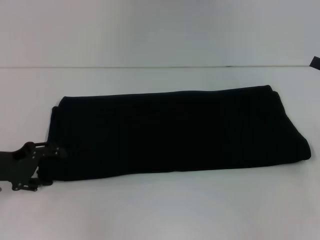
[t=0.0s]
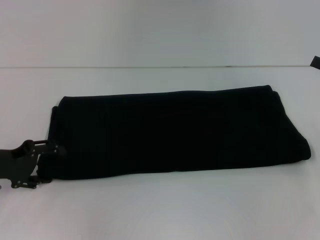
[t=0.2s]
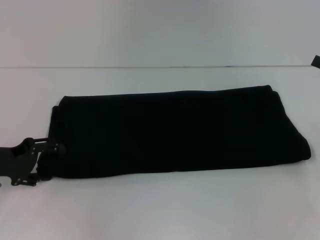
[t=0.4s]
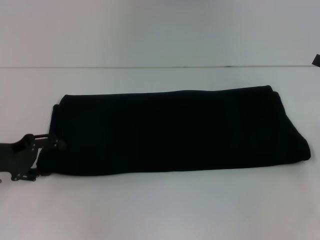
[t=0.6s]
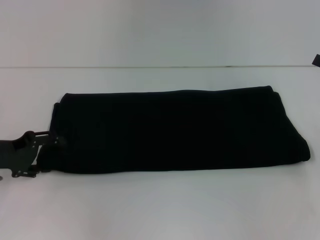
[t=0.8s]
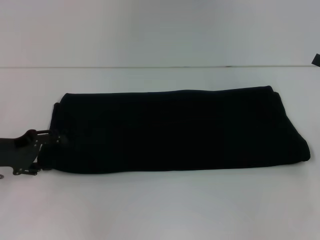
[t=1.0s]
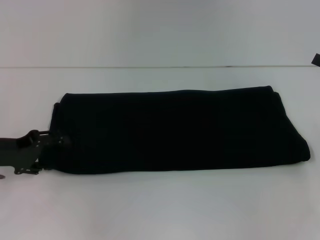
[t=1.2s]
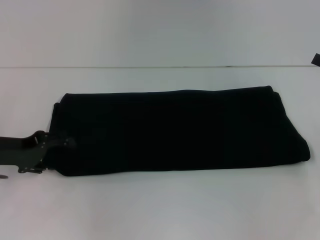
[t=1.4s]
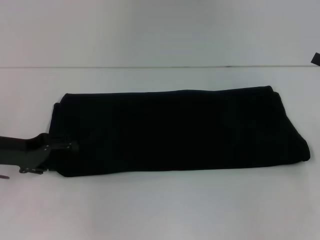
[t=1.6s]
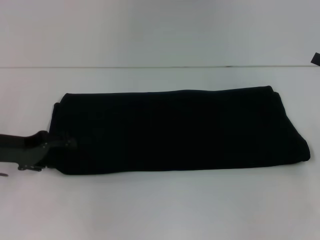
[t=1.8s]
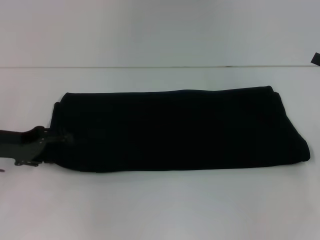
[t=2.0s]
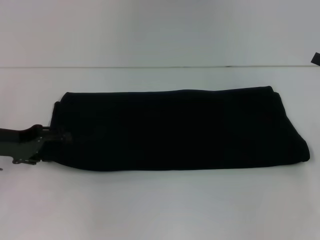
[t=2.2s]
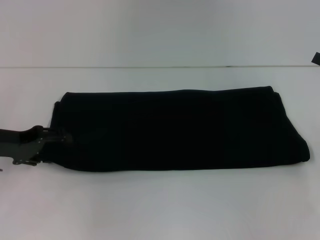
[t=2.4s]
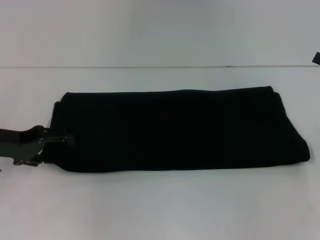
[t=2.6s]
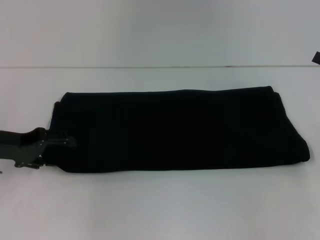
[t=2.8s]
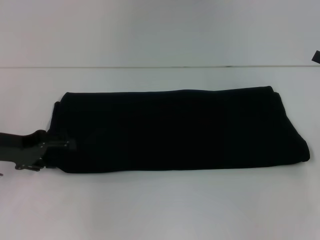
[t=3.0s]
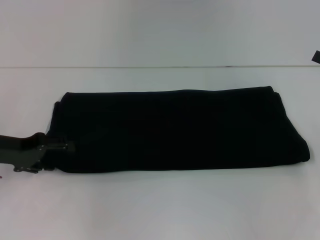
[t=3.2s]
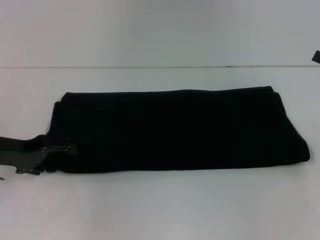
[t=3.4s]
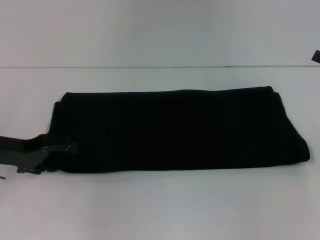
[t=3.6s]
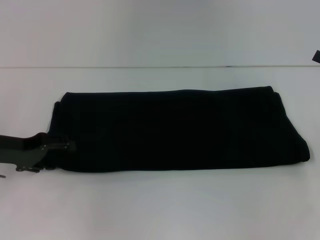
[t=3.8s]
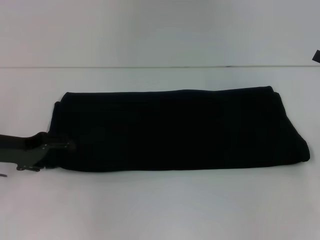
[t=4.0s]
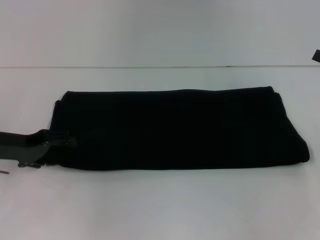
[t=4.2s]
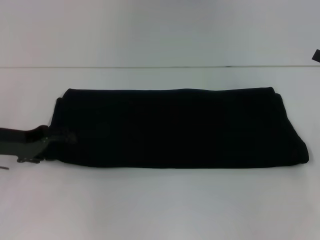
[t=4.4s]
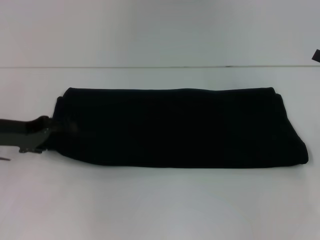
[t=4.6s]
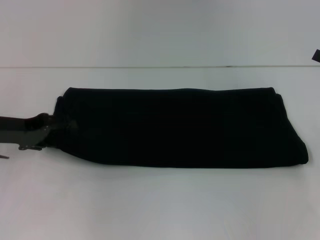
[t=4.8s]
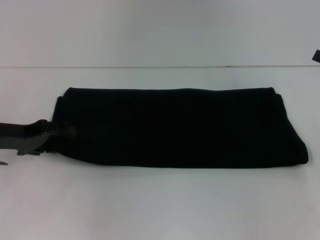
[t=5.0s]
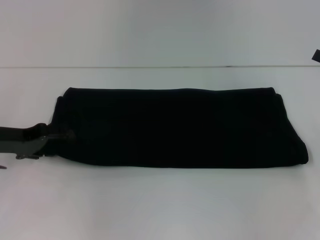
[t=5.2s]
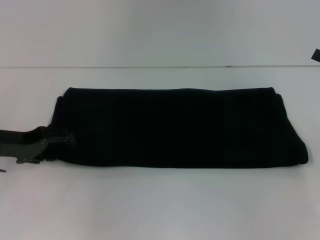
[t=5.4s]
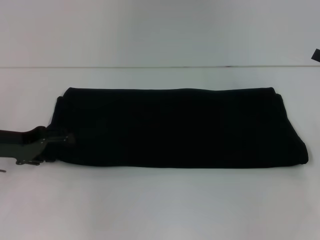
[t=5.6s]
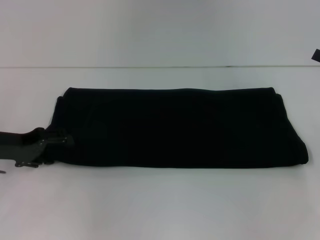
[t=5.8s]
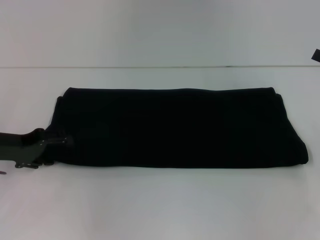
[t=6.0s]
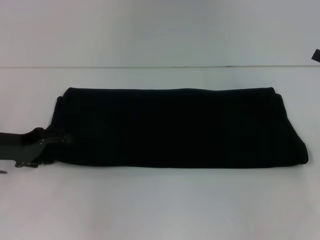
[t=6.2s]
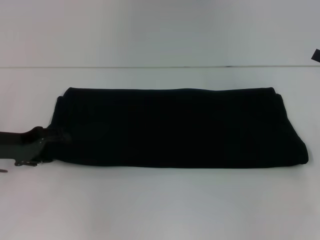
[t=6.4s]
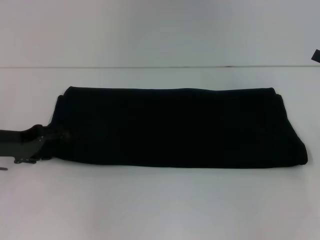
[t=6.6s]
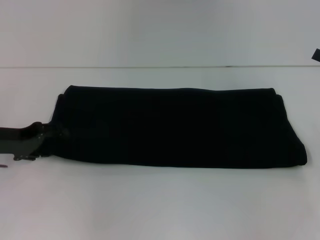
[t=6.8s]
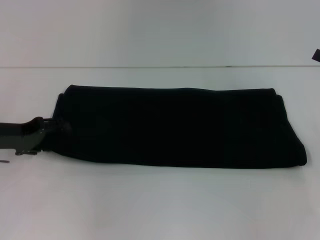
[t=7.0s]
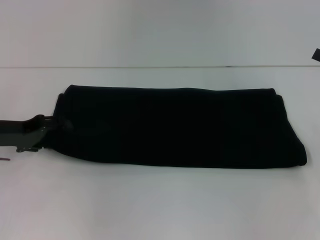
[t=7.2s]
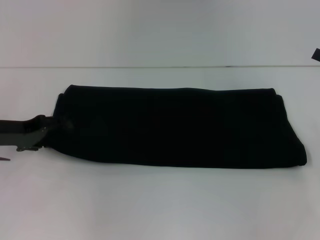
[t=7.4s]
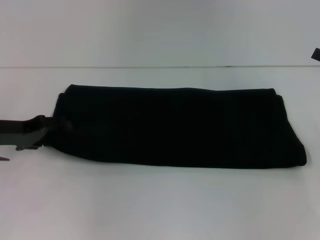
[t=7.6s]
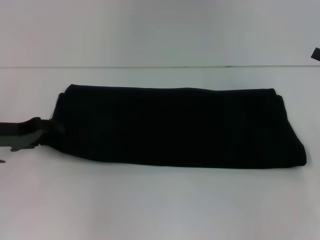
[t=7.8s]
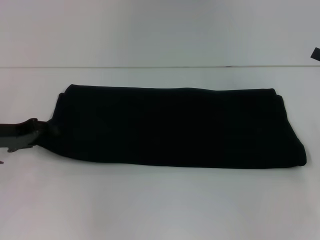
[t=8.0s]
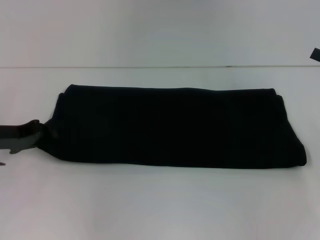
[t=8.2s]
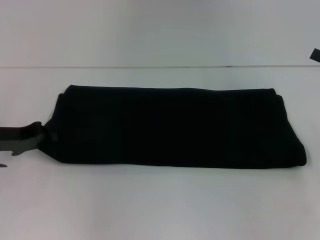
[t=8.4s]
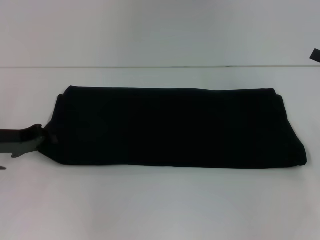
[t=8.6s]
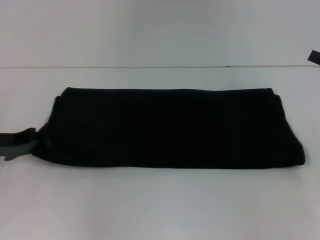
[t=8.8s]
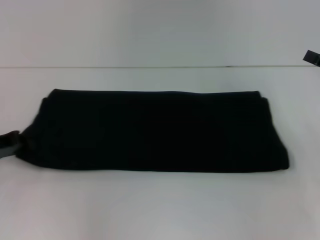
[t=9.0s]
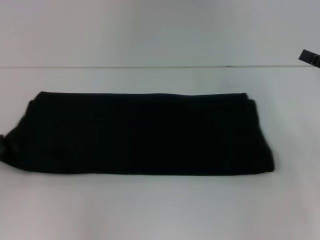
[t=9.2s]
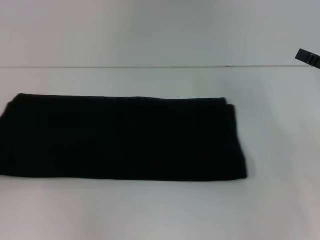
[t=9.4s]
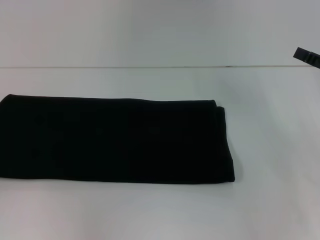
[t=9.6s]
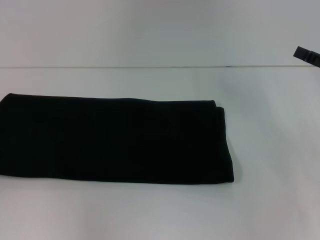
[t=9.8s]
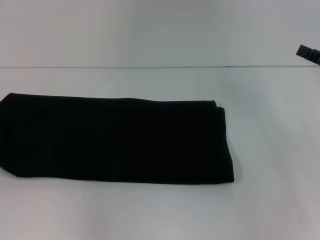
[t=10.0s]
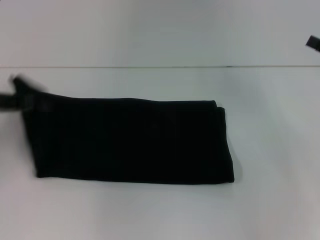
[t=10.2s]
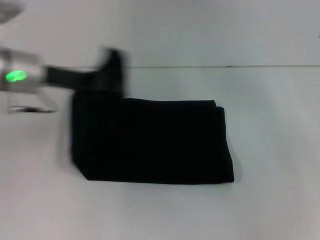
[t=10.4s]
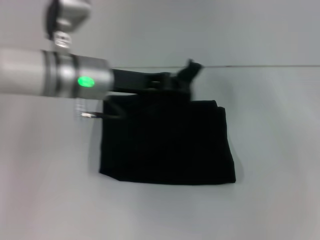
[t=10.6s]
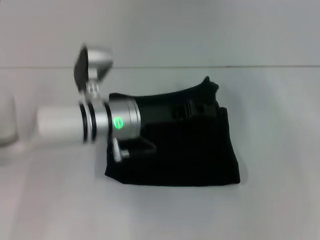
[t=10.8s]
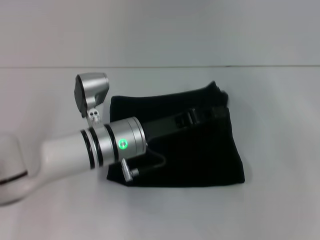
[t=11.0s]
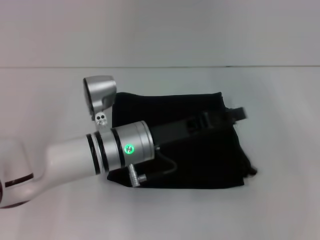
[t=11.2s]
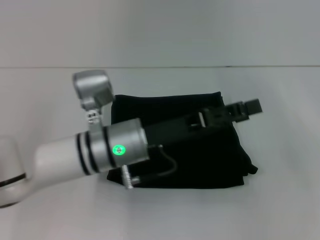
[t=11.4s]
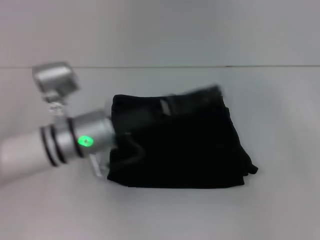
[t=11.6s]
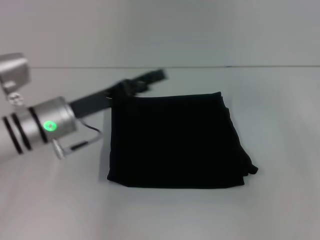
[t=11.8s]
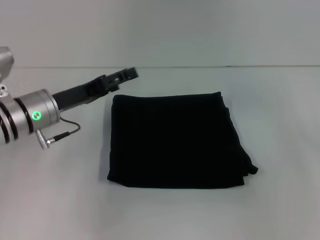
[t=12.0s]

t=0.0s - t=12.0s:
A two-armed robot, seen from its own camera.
Step, t=0.0s - t=11.4s: Fold the clothes with your left hand.
t=0.0s - t=3.0s: The grippers make only small movements.
t=3.0s - t=4.4s: The grippers stay close to where they were, moving slightly.
t=4.4s - t=6.0s: Neither gripper changes place.
t=6.0s - t=7.6s: There are only small adjustments of the grippers.
t=7.6s - t=9.0s: The left gripper closes up.
t=9.0s - t=10.4s: The left gripper travels to the right, upward and forward by approximately 15 cm.
t=10.4s - t=12.0s: The left gripper goes some 10 cm downward, moves roughly 15 cm to the right and comes back, and opens up.

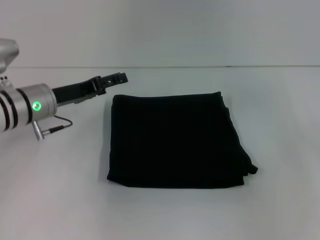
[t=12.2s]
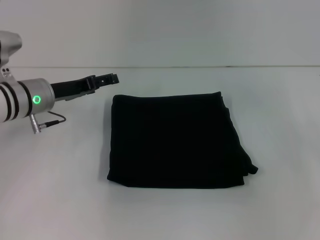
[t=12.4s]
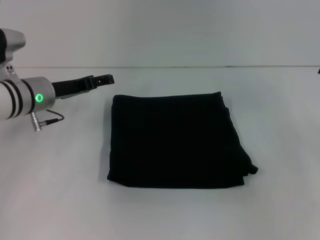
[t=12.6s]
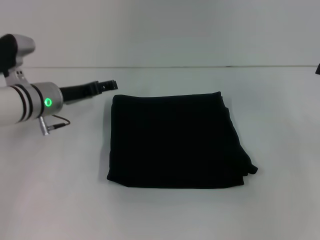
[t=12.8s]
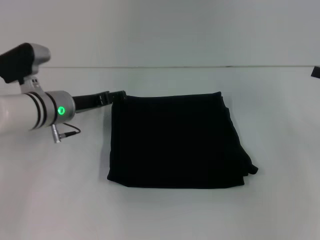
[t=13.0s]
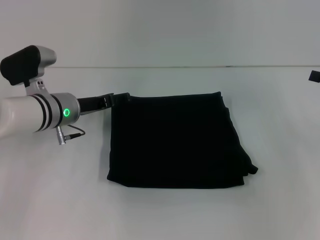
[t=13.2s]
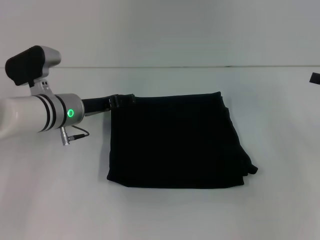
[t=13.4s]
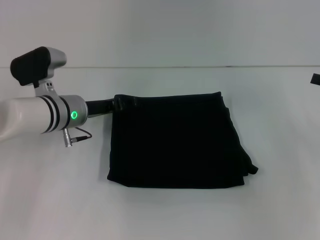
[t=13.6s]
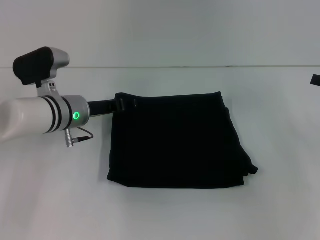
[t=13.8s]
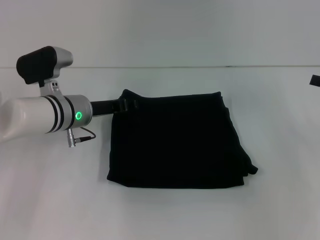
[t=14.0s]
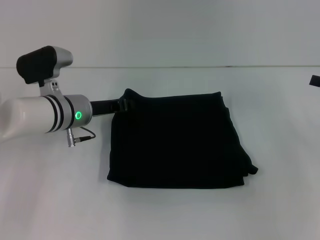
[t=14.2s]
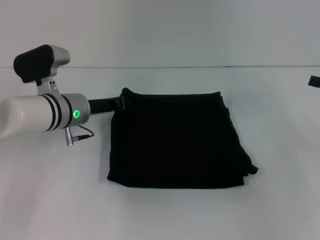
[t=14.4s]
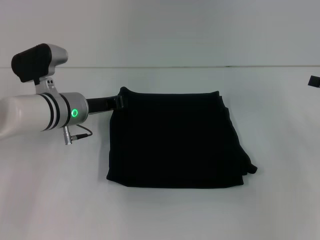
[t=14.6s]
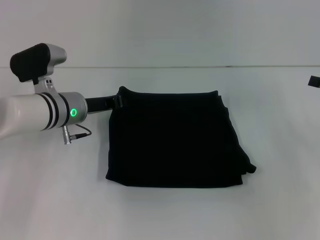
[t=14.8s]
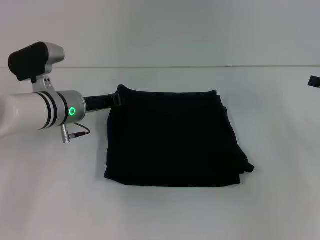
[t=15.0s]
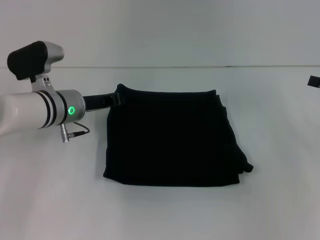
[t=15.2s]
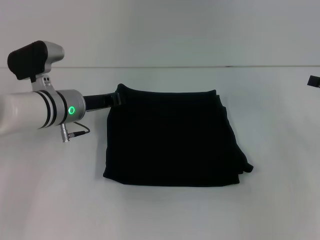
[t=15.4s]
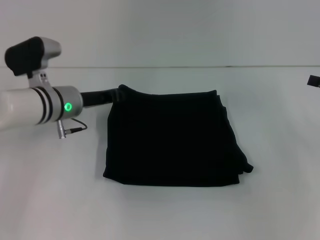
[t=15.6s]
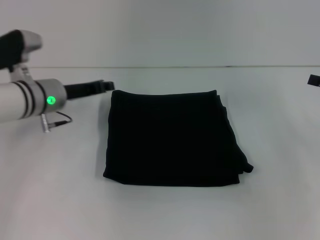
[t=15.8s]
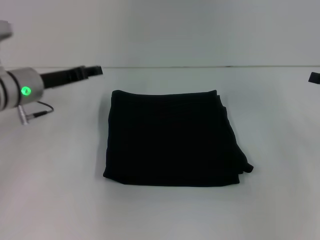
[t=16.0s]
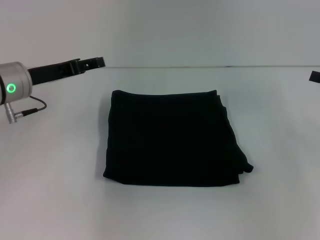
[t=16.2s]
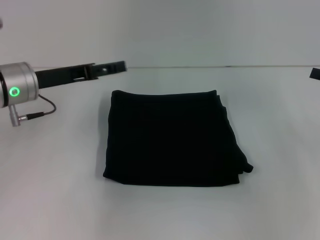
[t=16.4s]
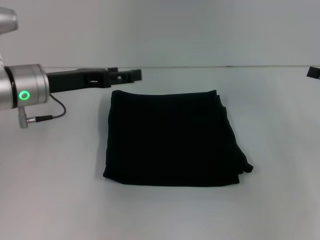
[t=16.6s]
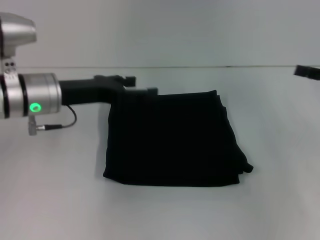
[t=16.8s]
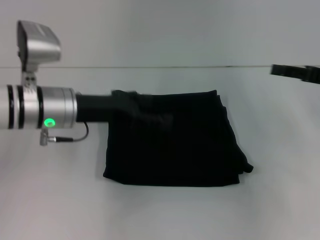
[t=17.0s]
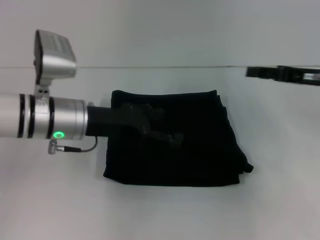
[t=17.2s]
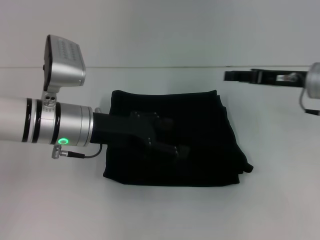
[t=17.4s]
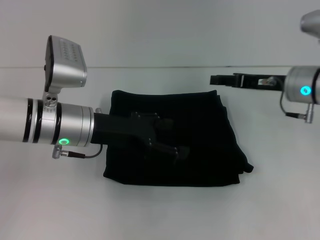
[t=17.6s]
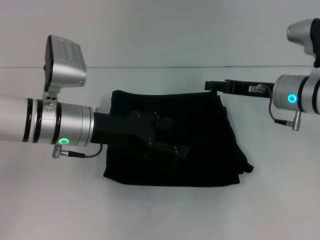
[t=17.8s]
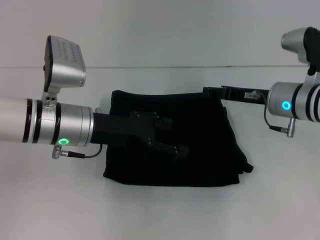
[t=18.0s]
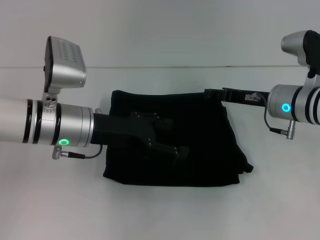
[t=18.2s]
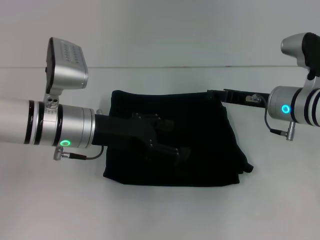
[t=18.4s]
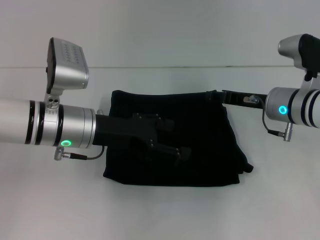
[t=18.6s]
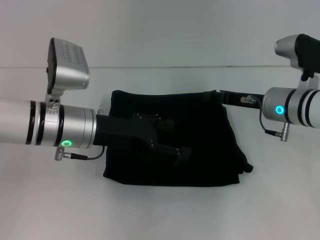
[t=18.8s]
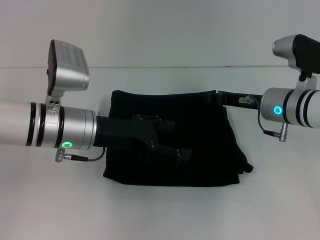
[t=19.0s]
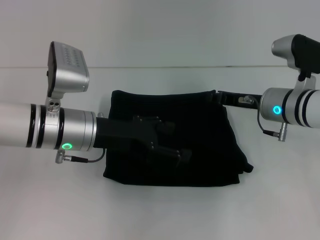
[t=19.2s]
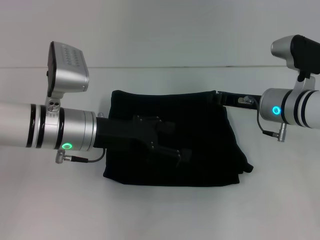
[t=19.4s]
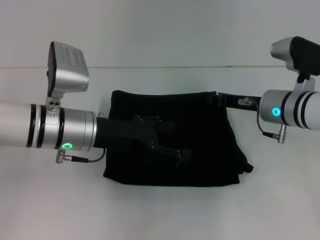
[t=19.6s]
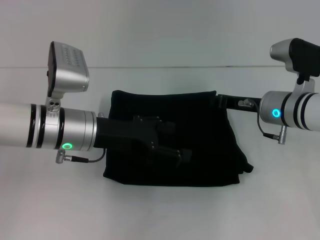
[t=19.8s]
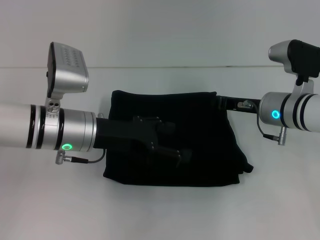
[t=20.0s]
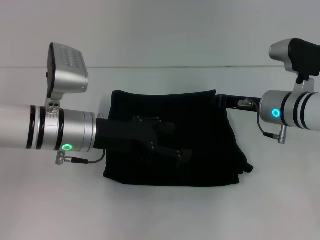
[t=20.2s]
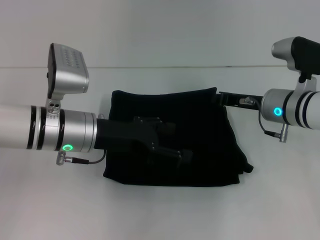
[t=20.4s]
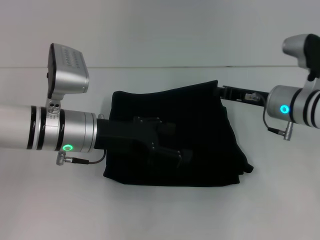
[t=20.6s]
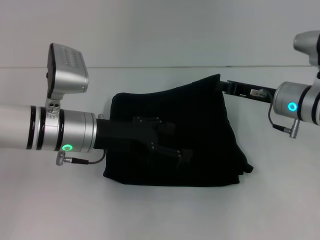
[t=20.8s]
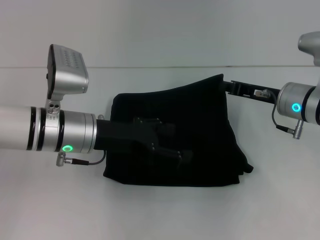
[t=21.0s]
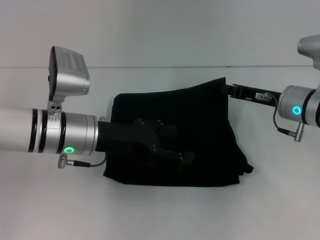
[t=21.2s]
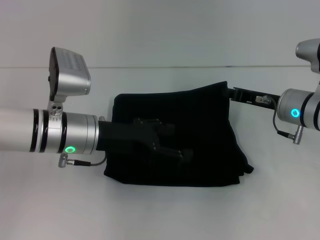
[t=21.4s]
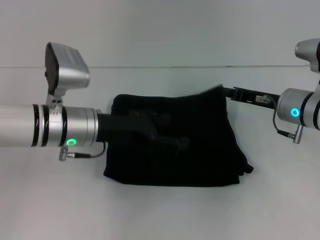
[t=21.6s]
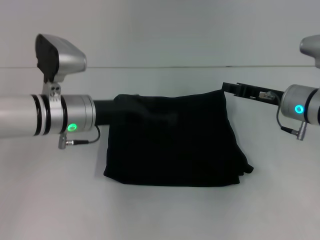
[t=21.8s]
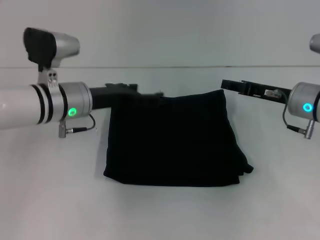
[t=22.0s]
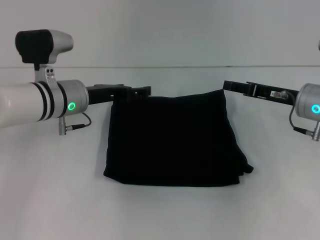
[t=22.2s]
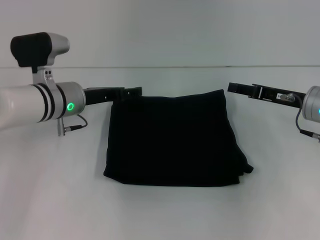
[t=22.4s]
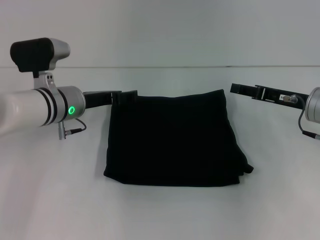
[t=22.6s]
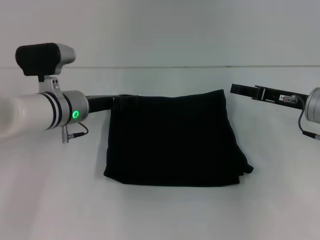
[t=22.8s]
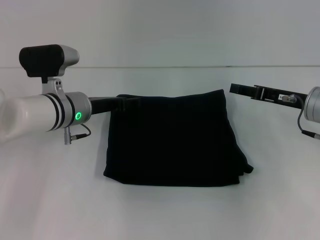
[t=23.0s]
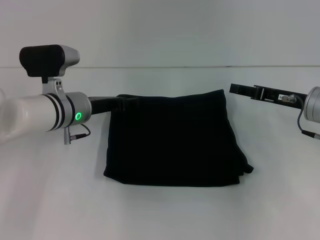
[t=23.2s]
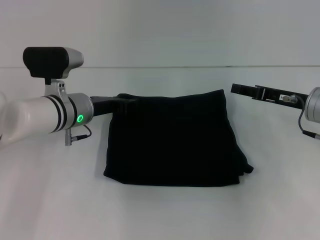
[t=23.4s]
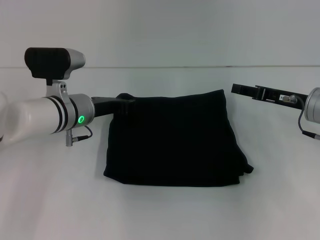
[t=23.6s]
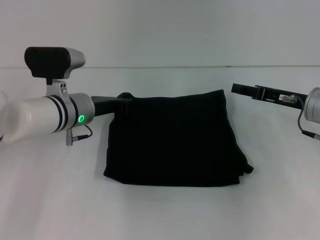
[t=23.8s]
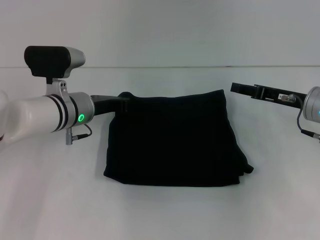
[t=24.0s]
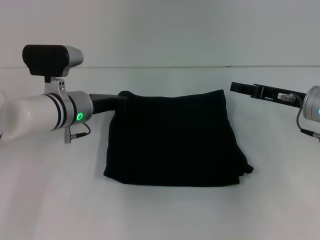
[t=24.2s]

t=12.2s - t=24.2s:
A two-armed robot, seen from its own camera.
t=12.2s - t=13.8s: The left gripper is displaced to the right by roughly 5 cm.
t=13.8s - t=15.2s: The left gripper closes.
t=15.2s - t=16.6s: The left gripper is displaced upward by about 5 cm, and opens its fingers.
t=16.6s - t=18.2s: The left gripper is displaced to the right by approximately 5 cm. Meanwhile the right gripper heads to the left, covering some 15 cm.
t=18.2s - t=19.8s: The right gripper closes up.
t=19.8s - t=21.2s: There are only small adjustments of the grippers.
t=21.2s - t=22.6s: The right gripper opens up, while the left gripper moves forward, about 5 cm.
t=22.6s - t=24.2s: The left gripper closes.
